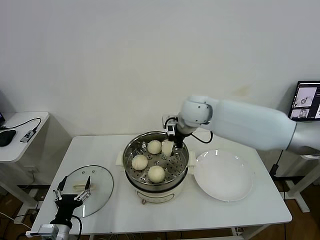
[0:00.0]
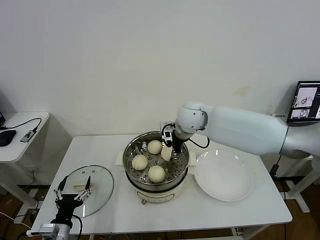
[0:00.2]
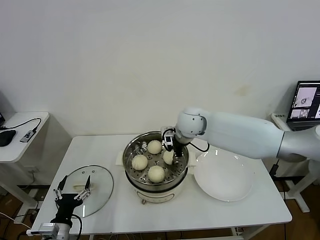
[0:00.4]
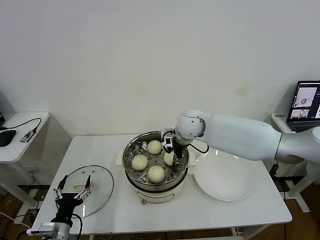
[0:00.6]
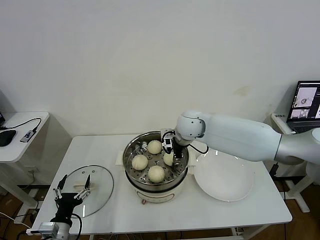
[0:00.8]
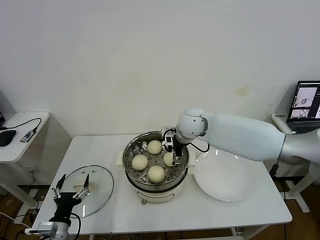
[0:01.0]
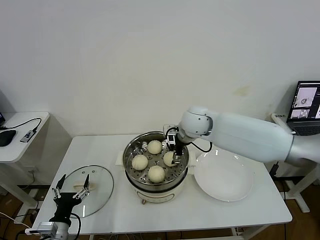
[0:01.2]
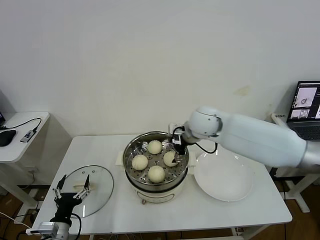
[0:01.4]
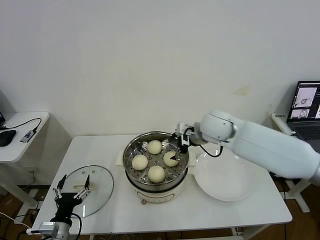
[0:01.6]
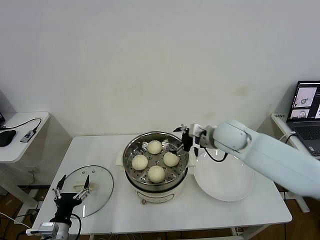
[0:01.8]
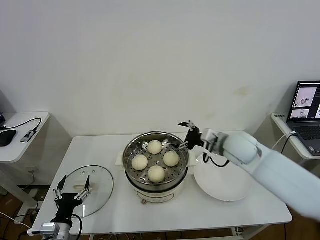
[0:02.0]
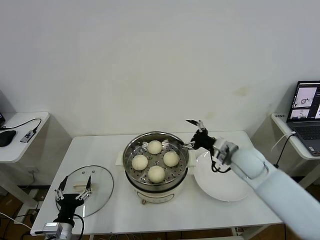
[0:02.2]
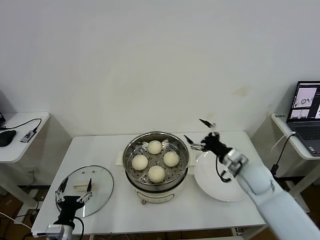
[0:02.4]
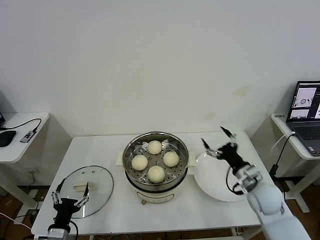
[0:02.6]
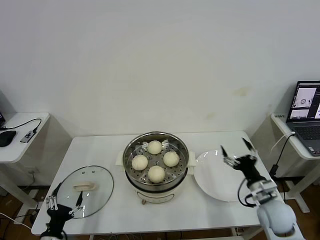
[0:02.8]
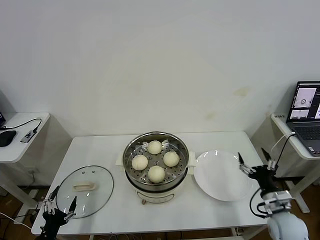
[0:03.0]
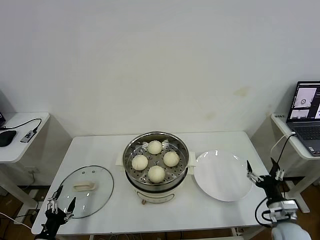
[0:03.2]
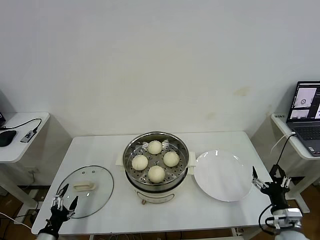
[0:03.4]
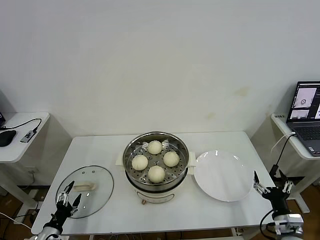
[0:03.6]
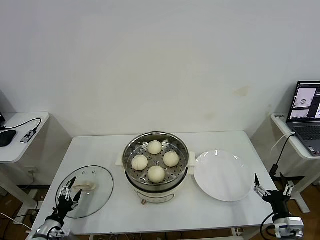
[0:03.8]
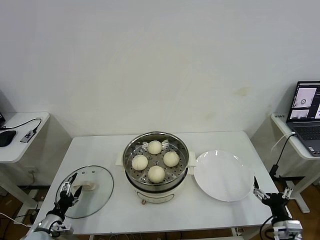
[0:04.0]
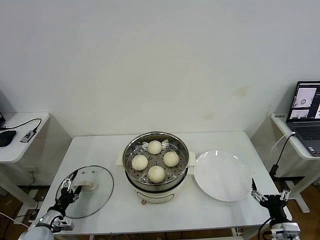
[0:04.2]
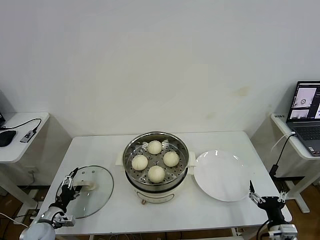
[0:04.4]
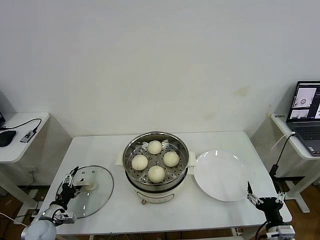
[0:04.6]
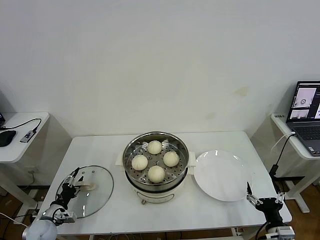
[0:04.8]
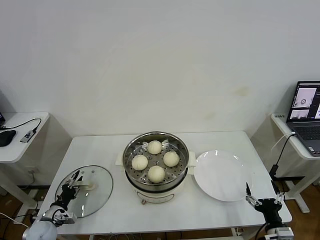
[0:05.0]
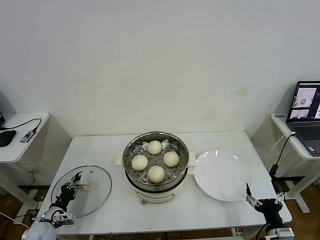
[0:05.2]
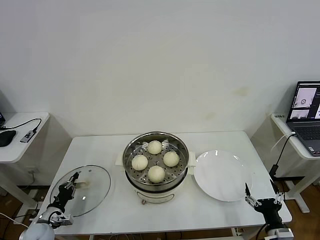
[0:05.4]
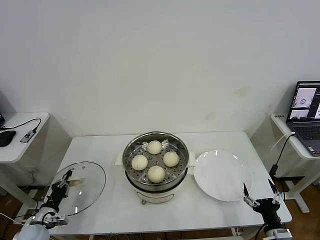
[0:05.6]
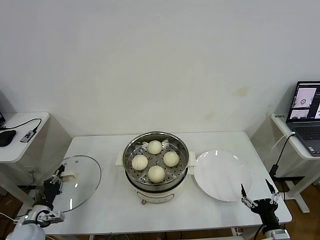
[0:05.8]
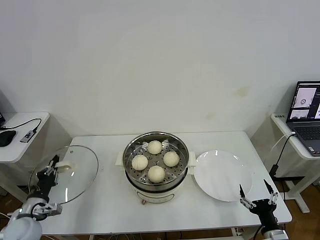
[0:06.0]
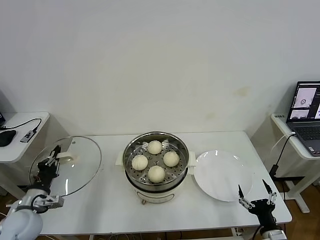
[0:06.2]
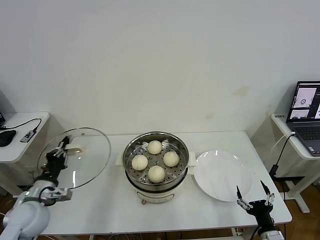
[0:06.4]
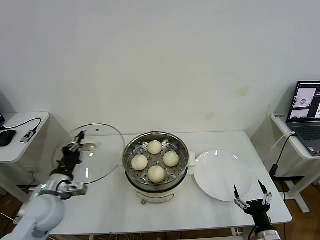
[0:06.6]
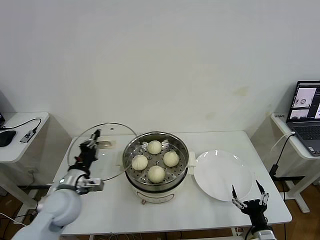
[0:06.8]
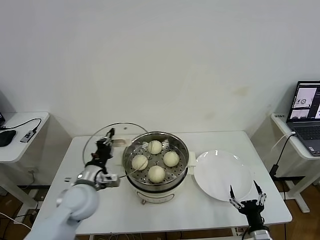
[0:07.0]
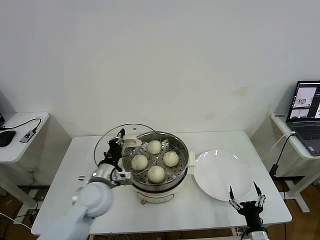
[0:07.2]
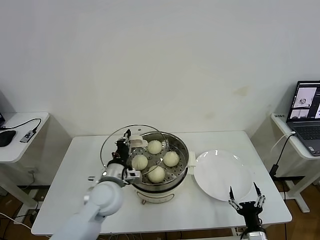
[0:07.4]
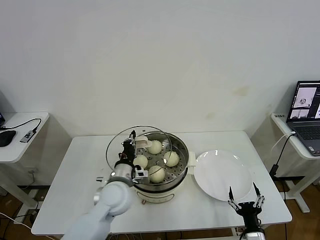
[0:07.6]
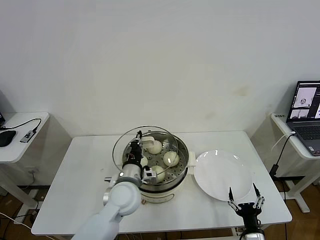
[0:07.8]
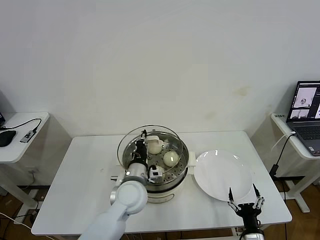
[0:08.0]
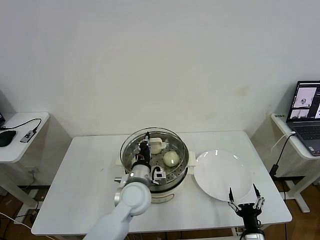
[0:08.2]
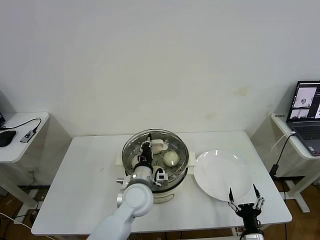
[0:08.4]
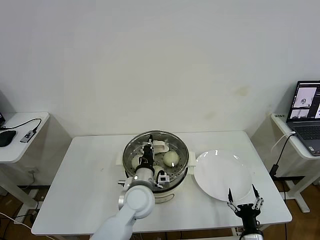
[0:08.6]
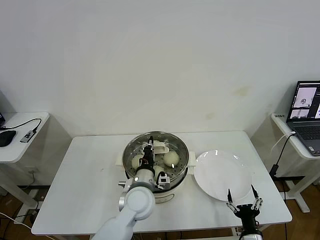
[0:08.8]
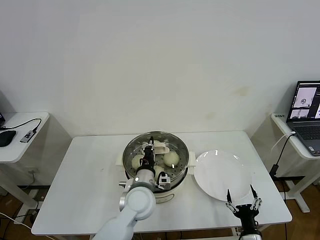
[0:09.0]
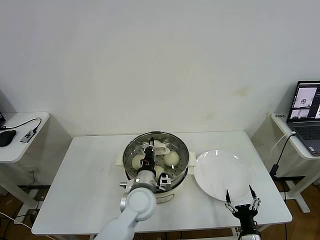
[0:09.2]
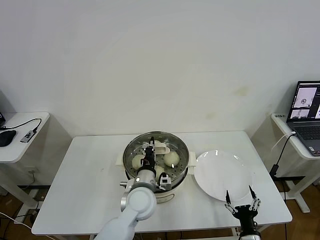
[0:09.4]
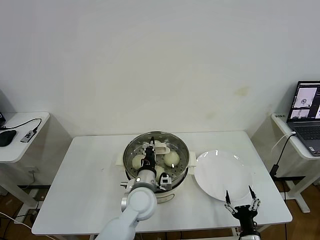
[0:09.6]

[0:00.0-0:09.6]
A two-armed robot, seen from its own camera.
Task of the whole recording: take steamed baozi put them in steamer then cover it.
Step, 0:01.4 to 0:05.4: Grasp the pot lid with left gripper.
0:00.0 to 0:01.6: The right gripper heads to the right, covering some 5 cm, and opens its fingers.
0:01.6 to 0:03.2: The right gripper shifts approximately 40 cm backward, downward and to the right, while the left gripper is displaced to the left by approximately 5 cm.
0:03.2 to 0:04.8: The left gripper shifts about 15 cm forward, while the right gripper shifts some 5 cm backward.
0:04.8 to 0:06.4: The left gripper goes some 20 cm upward, and closes its fingers.
0:06.4 to 0:08.0: The left gripper heads to the right, covering approximately 30 cm. The right gripper ends up roughly 5 cm from where it was.
0:08.0 to 0:09.6: The grippers stay close to where they were, moving slightly.

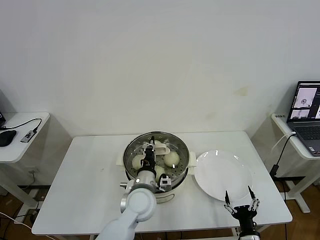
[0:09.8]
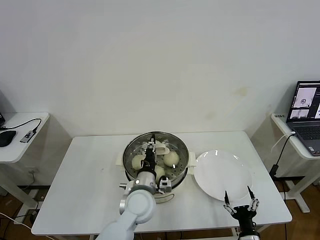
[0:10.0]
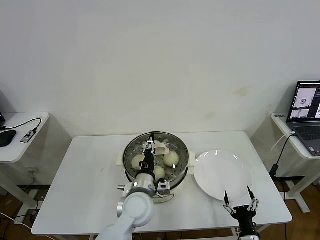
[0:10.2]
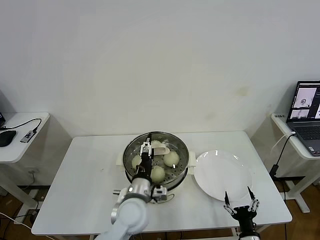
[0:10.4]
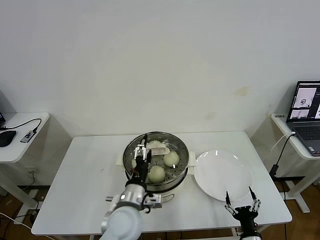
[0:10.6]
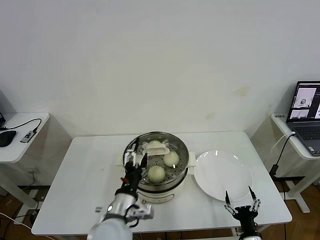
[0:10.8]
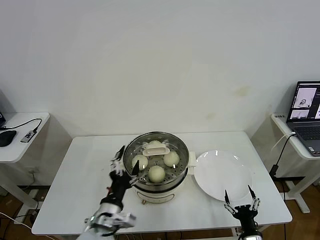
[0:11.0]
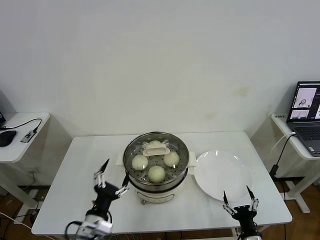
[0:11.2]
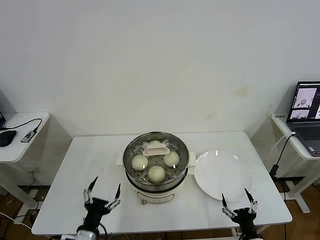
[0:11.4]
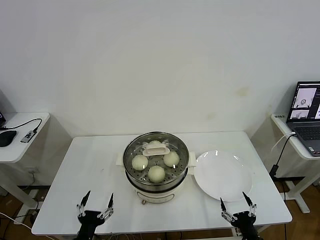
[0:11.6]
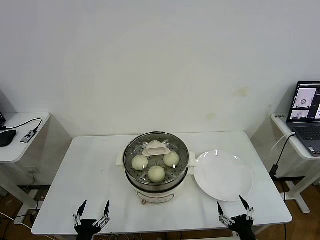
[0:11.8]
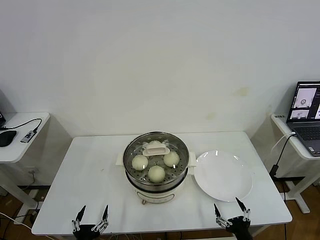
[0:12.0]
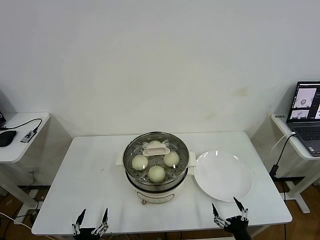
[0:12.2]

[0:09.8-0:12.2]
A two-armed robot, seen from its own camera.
Task of the whole recording: take steamed baozi put them in steamer then cover it.
0:09.8 to 0:11.0: The left gripper travels backward and to the left by about 15 cm, and opens.
0:11.0 to 0:12.2: The left gripper travels downward, backward and to the left by about 20 cm.

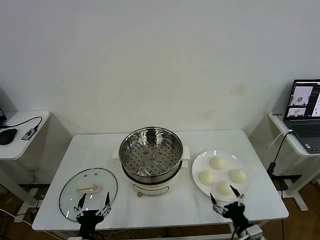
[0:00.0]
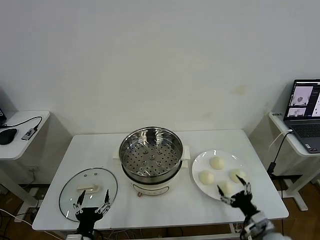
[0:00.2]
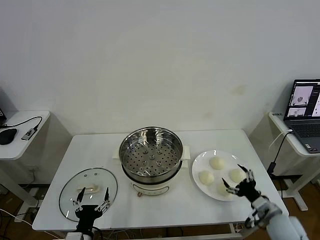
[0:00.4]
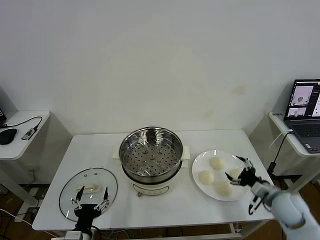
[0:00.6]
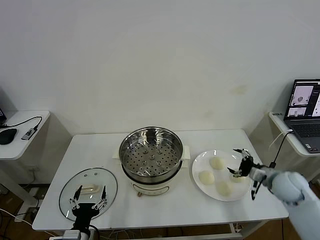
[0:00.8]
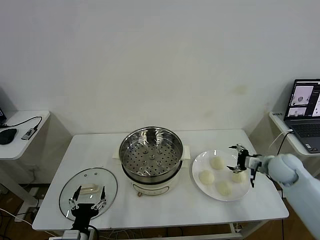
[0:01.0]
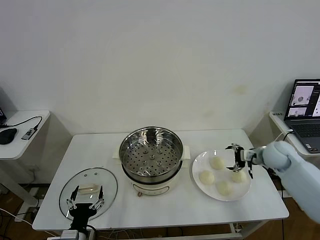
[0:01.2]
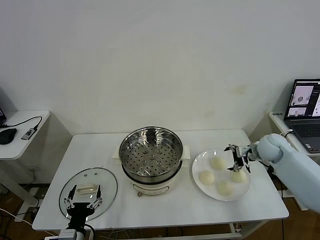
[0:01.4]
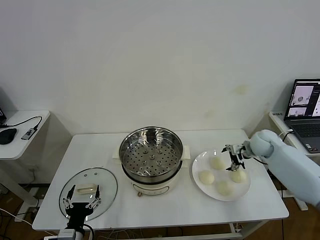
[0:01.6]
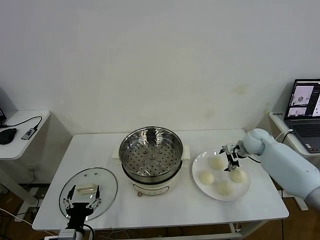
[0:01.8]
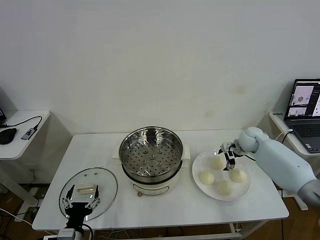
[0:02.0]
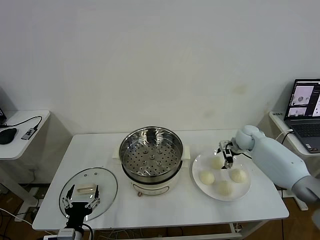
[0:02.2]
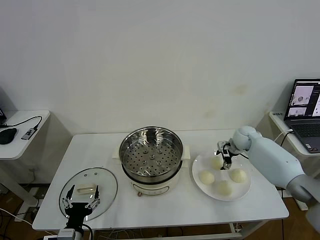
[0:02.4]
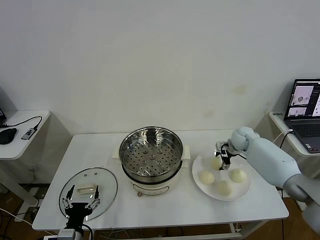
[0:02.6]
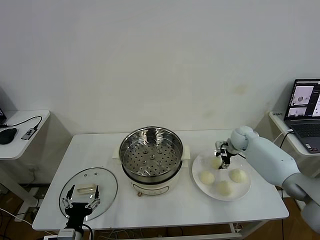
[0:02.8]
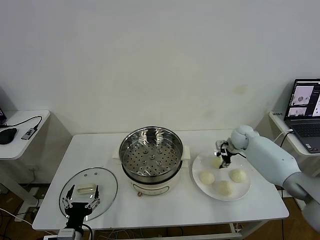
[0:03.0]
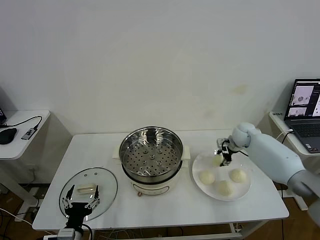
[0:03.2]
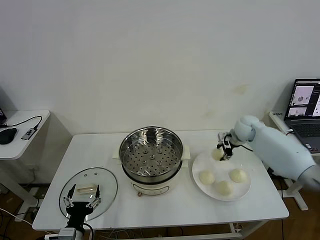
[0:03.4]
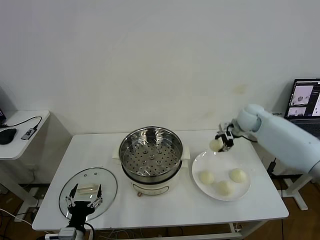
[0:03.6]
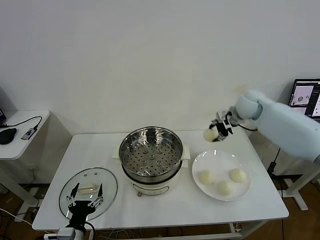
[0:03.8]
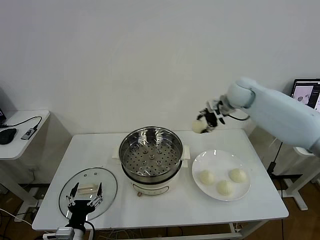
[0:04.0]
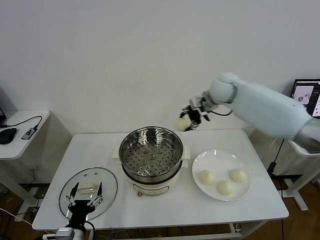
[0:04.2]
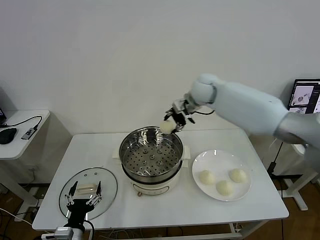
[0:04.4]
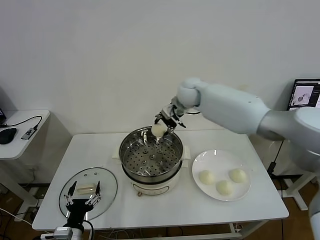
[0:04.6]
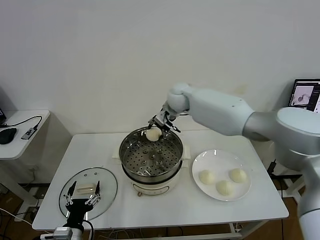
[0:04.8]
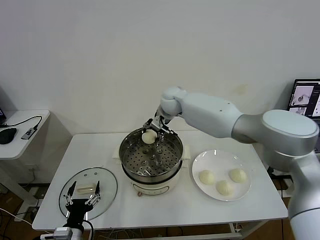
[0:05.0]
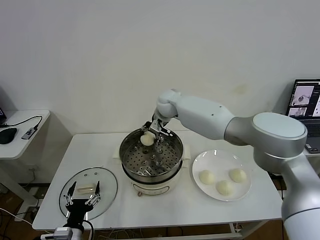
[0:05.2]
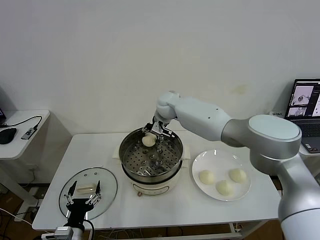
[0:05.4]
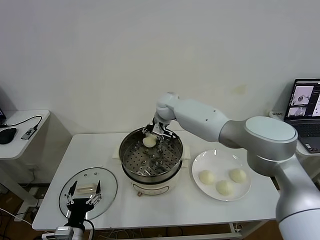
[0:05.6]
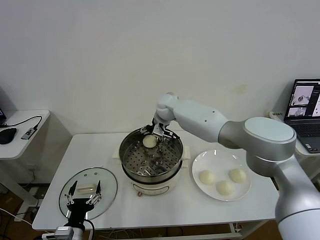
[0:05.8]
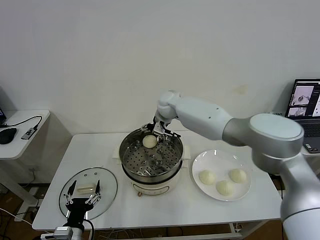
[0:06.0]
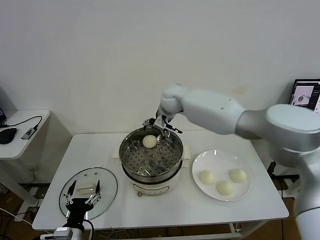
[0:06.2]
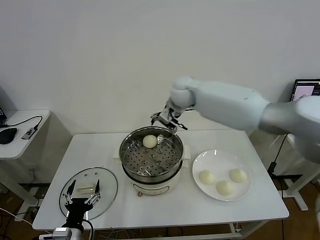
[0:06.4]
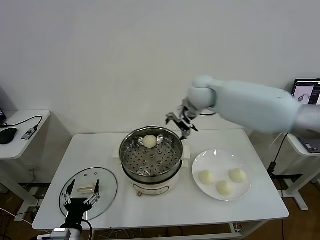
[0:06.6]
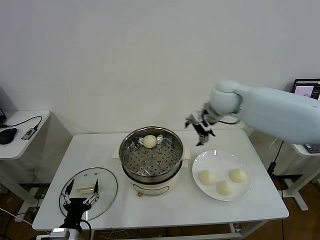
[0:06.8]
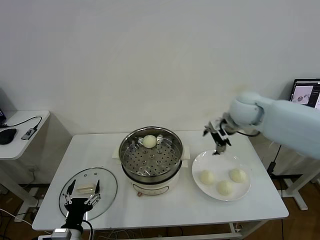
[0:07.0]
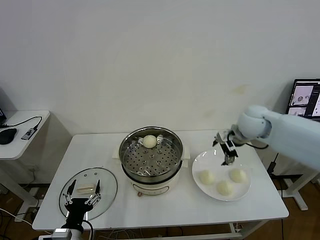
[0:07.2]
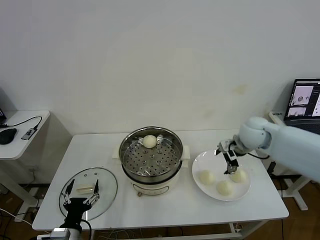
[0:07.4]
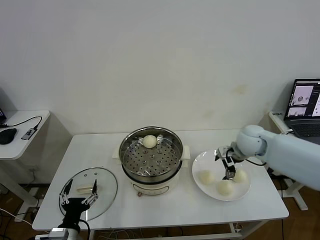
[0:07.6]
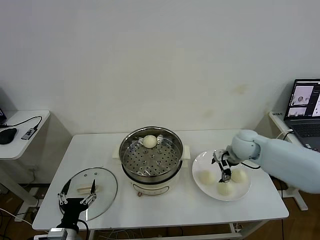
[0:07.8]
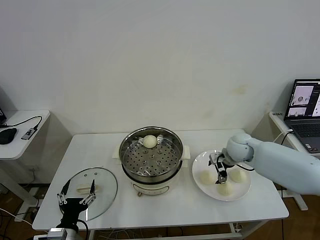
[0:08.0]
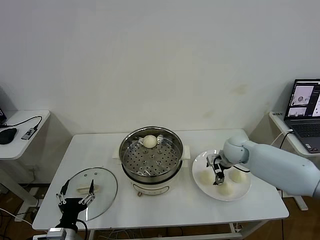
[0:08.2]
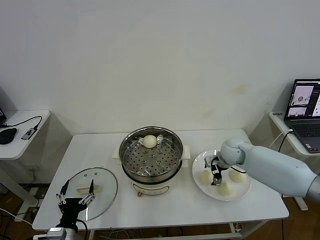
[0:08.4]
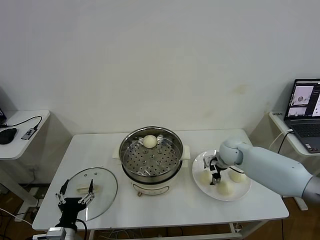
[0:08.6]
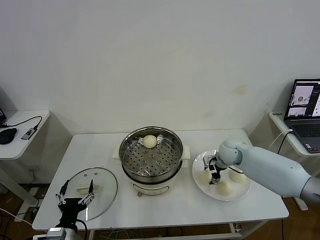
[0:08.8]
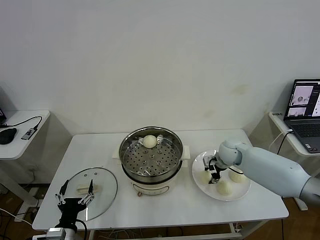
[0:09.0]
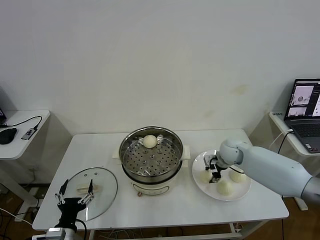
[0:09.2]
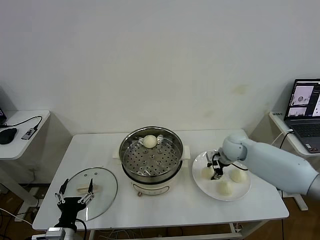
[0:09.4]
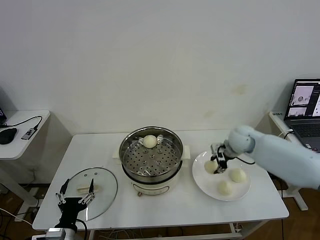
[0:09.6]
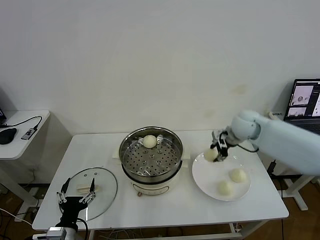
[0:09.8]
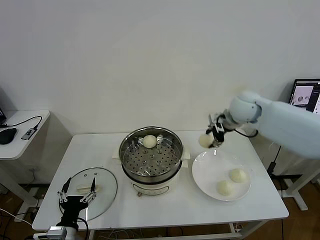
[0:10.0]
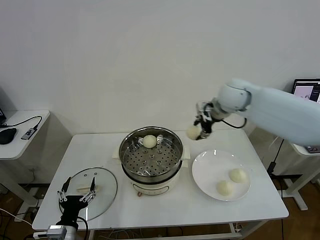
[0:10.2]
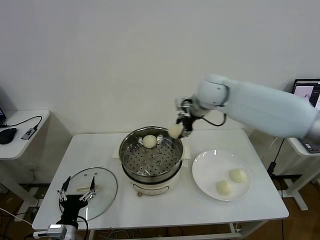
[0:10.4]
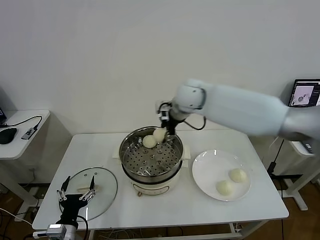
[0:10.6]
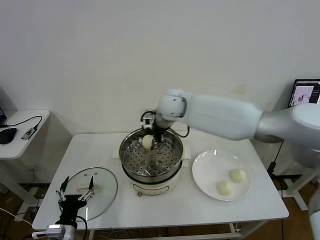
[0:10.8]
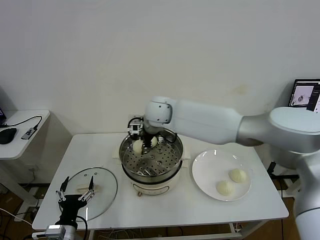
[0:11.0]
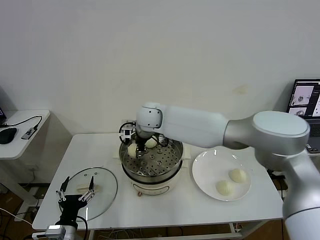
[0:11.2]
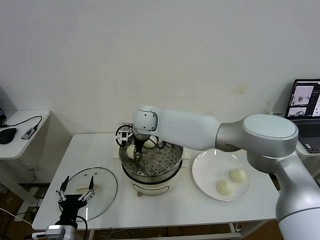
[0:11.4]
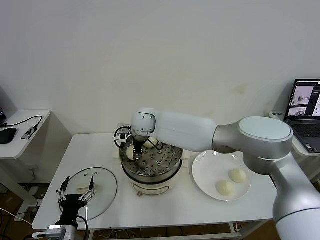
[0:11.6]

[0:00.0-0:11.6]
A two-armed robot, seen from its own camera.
Task of the whole recording: take steamed baozi put them in steamer then cover it.
Step, 0:00.0 to 0:03.0: Grasp the baozi in the plate with right gripper.
Step, 0:03.2 to 0:06.0: Place the baozi on the steamer with right gripper.
Step, 0:06.2 to 0:09.2: Grasp the baozi in the plate with right gripper.
0:01.4 to 0:02.8: The right gripper goes some 5 cm forward, and closes.
0:02.8 to 0:04.4: The right gripper shifts some 30 cm to the left and upward.
0:04.4 to 0:05.8: The right gripper shifts roughly 10 cm to the left and downward, and opens up.
0:05.8 to 0:07.2: The right gripper moves to the right and backward, approximately 30 cm.
0:07.2 to 0:08.8: The right gripper goes approximately 15 cm downward, and closes up.
0:08.8 to 0:10.2: The right gripper shifts about 25 cm upward.
0:10.2 to 0:11.6: The right gripper heads to the left and downward, covering roughly 25 cm, and opens up.
